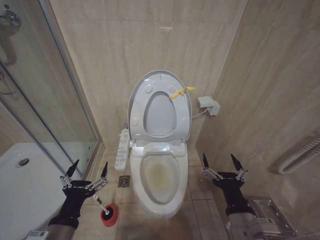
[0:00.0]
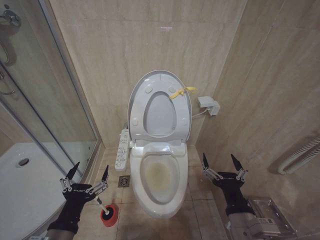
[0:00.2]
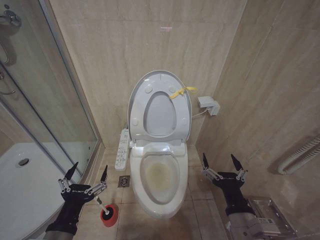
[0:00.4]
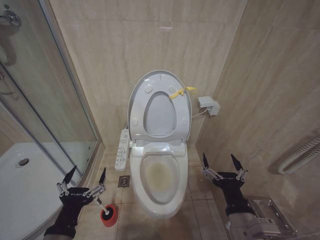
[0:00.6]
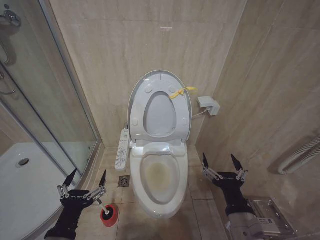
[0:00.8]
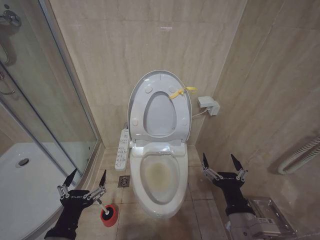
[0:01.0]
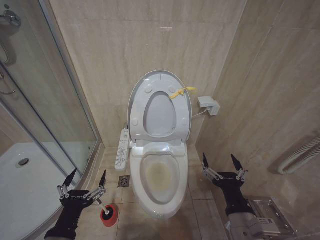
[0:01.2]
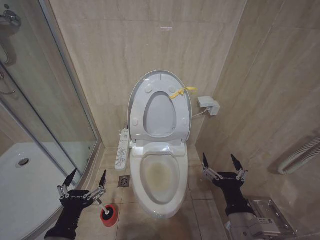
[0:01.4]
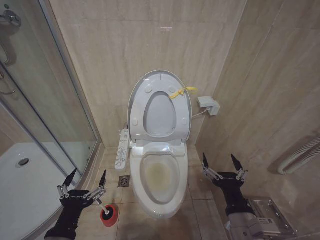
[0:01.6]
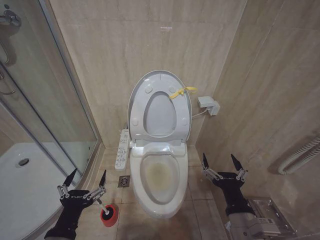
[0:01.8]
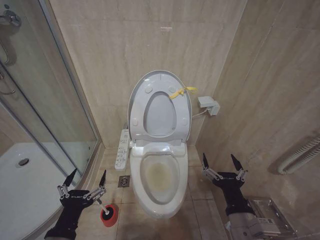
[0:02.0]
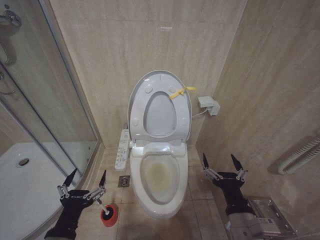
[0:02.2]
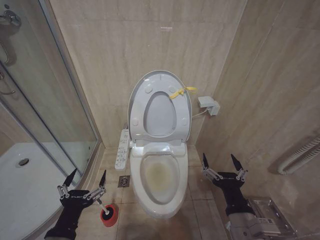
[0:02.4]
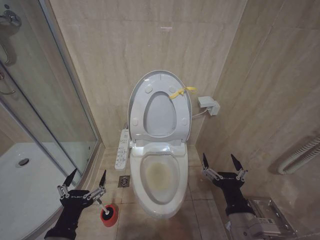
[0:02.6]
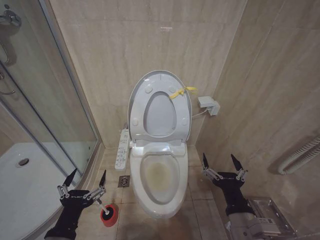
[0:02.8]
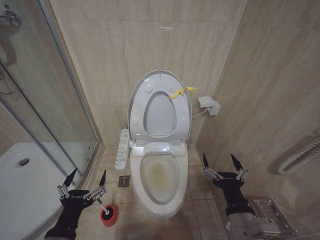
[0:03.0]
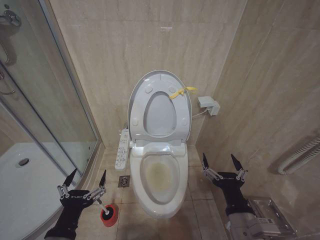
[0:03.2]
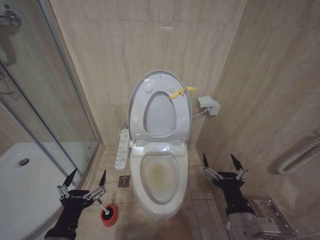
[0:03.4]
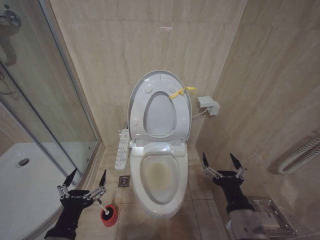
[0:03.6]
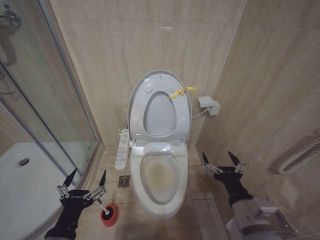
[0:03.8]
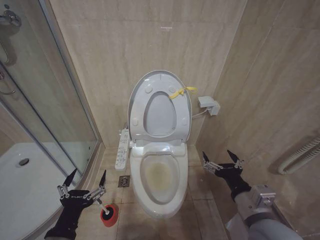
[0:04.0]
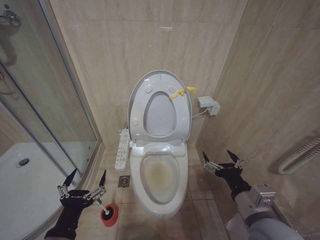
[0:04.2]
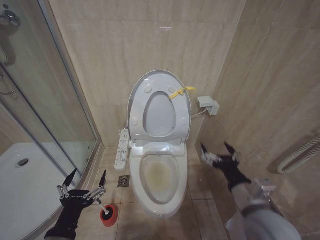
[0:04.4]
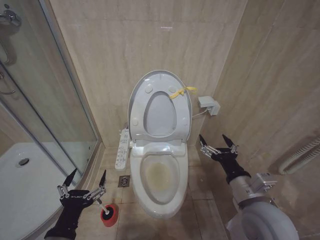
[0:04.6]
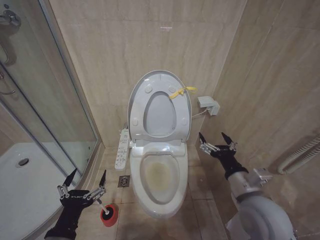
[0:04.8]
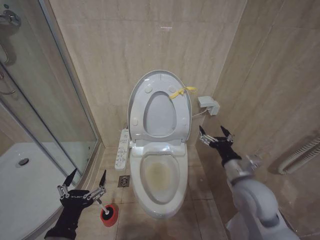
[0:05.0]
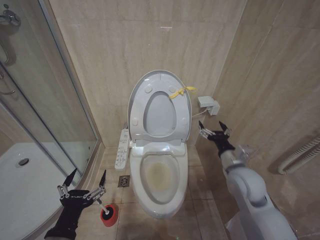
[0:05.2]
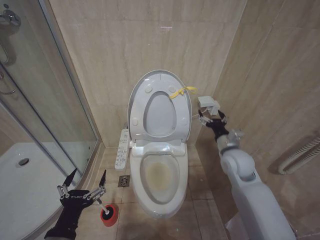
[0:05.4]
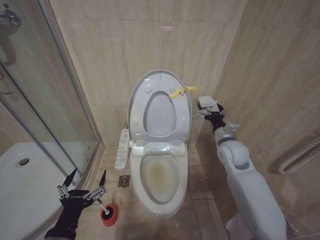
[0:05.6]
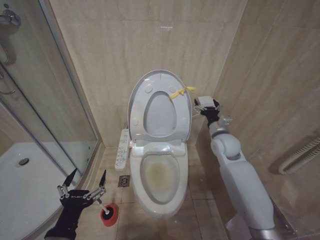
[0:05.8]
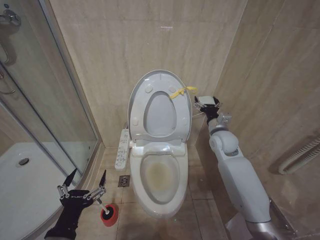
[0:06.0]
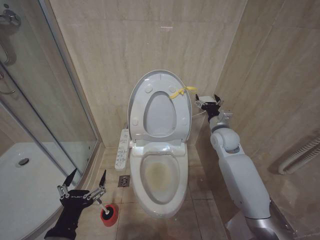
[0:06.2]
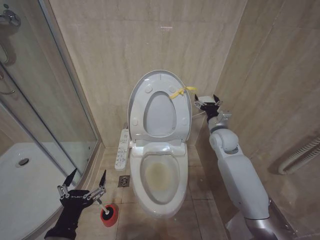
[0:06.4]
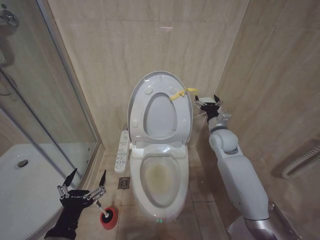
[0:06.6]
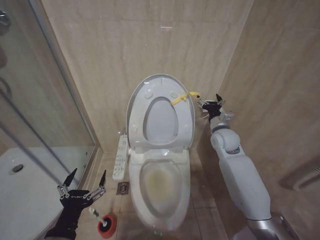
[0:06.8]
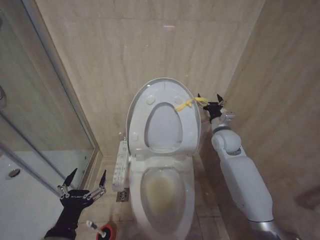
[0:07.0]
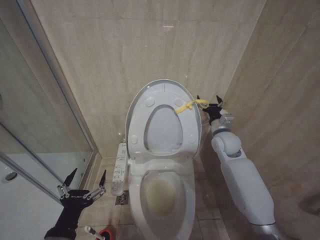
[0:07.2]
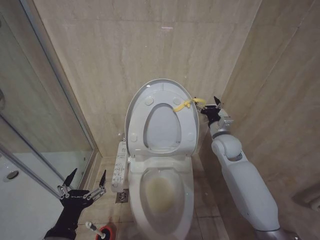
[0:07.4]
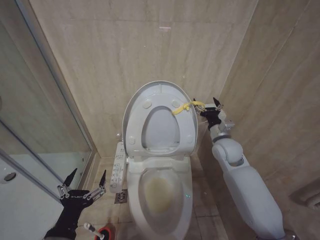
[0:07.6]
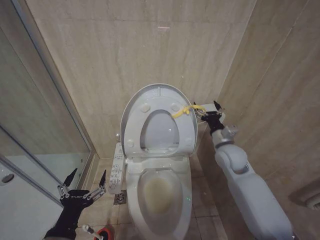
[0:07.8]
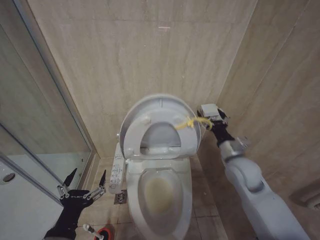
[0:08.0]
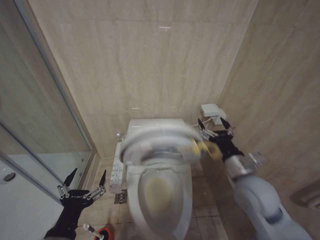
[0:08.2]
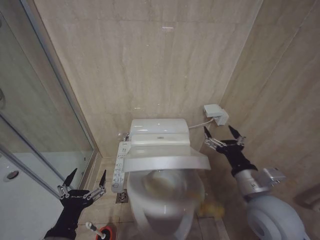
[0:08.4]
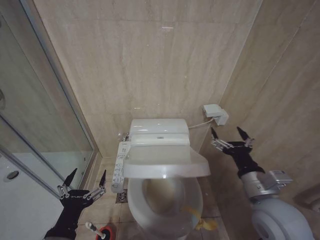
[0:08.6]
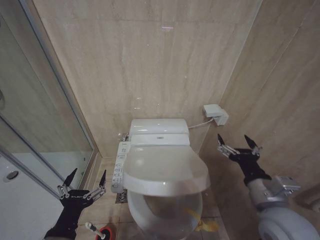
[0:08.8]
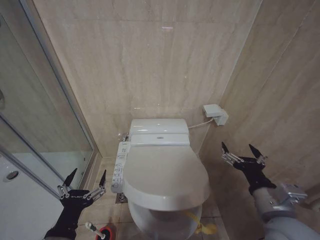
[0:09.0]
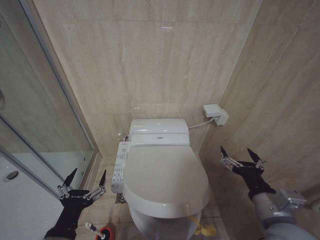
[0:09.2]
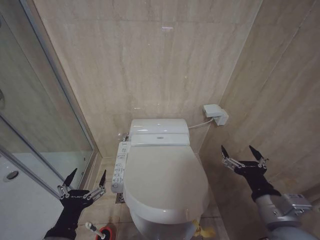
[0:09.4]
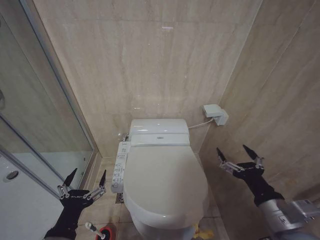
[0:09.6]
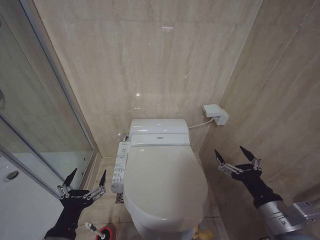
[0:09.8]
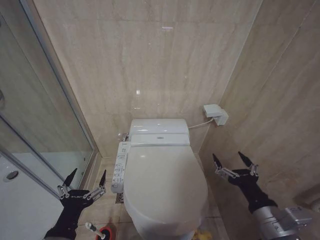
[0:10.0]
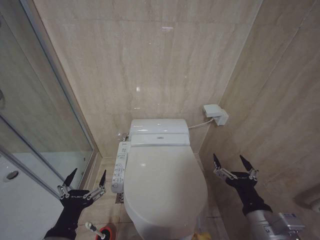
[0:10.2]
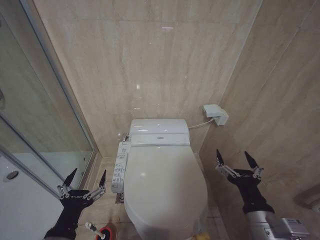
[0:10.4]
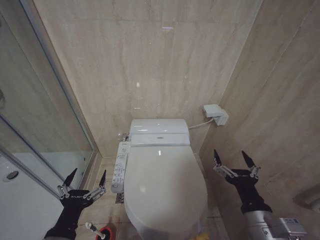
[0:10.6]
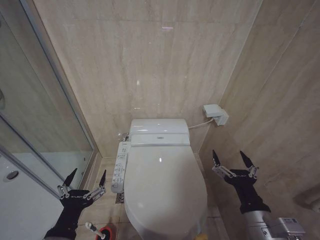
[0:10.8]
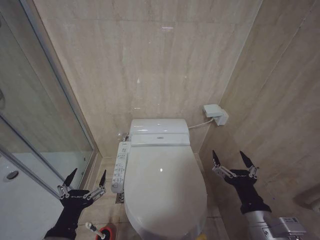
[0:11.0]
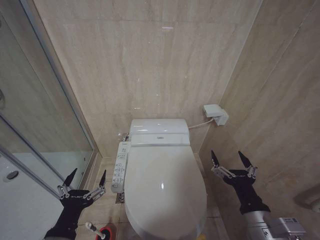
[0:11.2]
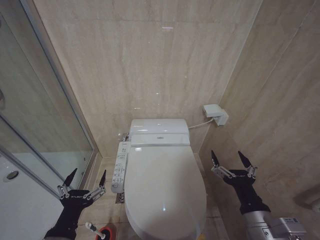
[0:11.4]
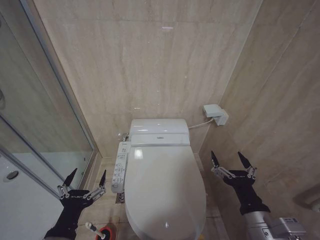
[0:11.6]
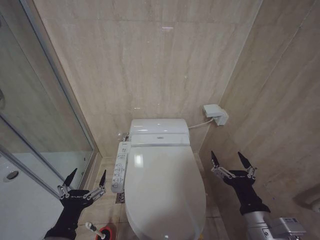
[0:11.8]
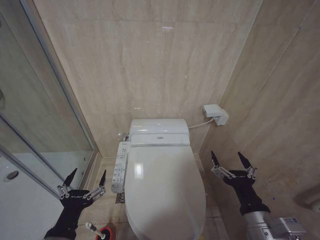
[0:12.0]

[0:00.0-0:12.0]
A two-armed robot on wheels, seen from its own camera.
Task of the whole recording: Open the toilet lid, clean the toilet bowl with a toilet brush, close the toilet lid, and flush.
0:00.0 to 0:01.6: The grippers stay close to where they were, moving slightly.
0:01.6 to 0:03.0: Neither gripper changes place.
0:03.0 to 0:04.4: The right gripper shifts by about 5 cm.
0:04.4 to 0:06.0: The right gripper moves forward, some 30 cm.
0:06.0 to 0:07.6: The grippers move only a little.
0:07.6 to 0:09.0: The right gripper shifts roughly 25 cm backward.
0:09.0 to 0:10.4: The right gripper ends up some 5 cm from where it was.
0:10.4 to 0:12.0: The two grippers keep their place.

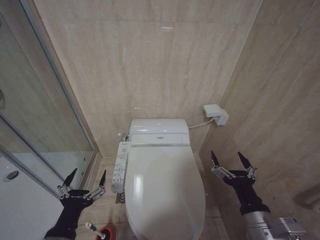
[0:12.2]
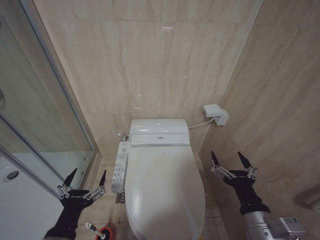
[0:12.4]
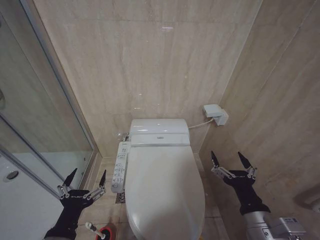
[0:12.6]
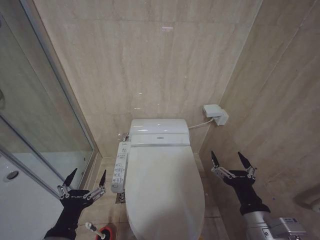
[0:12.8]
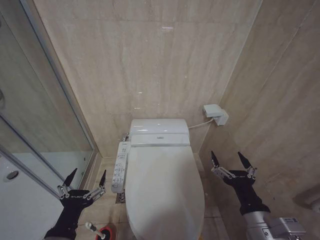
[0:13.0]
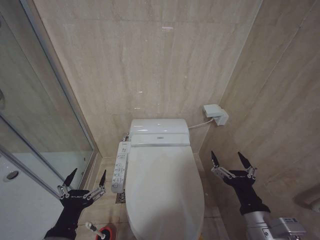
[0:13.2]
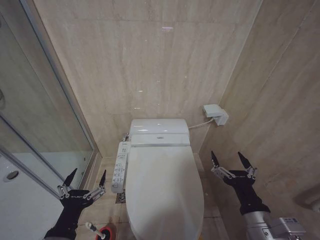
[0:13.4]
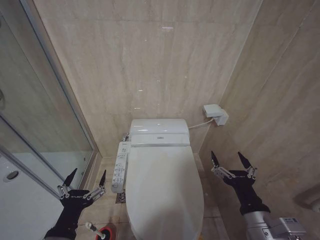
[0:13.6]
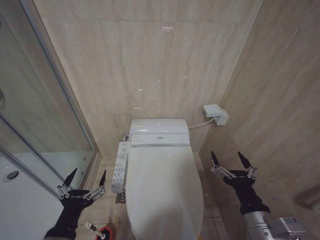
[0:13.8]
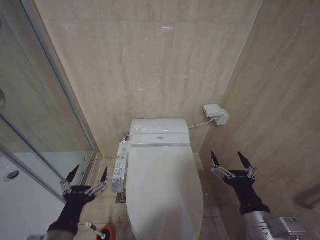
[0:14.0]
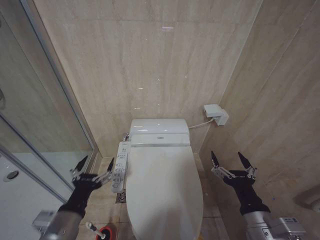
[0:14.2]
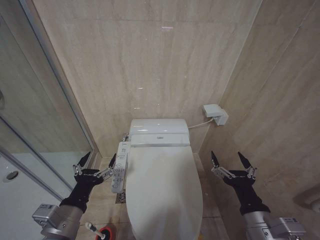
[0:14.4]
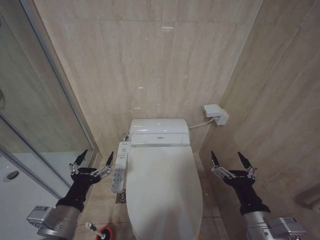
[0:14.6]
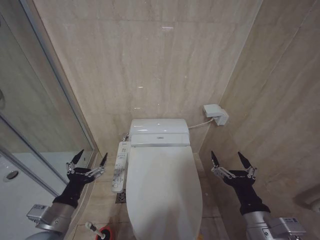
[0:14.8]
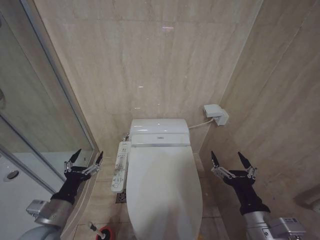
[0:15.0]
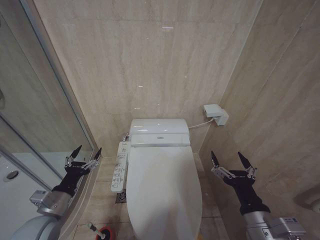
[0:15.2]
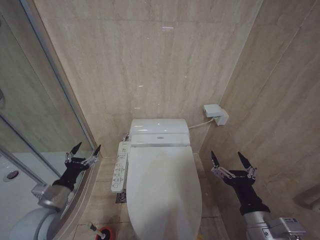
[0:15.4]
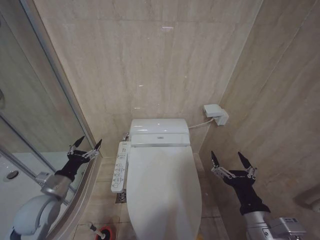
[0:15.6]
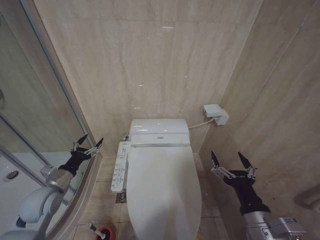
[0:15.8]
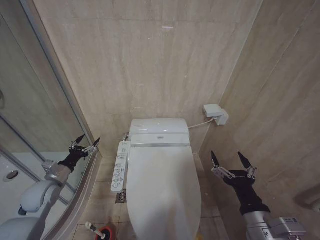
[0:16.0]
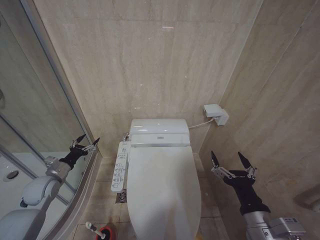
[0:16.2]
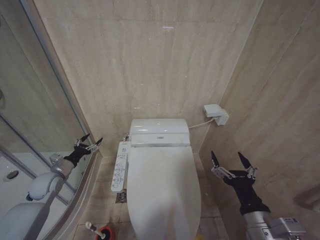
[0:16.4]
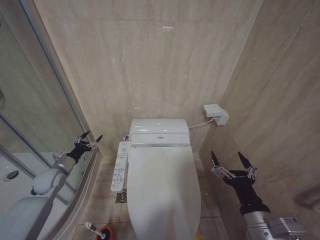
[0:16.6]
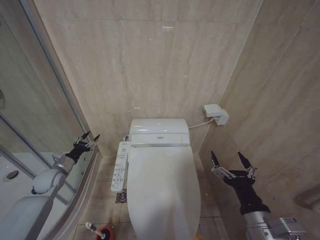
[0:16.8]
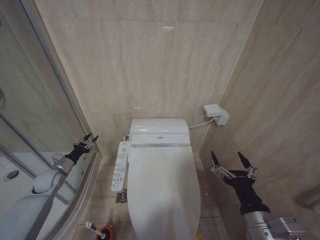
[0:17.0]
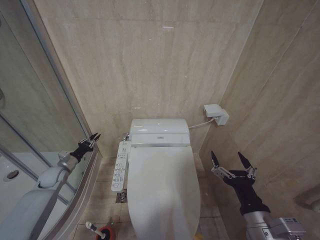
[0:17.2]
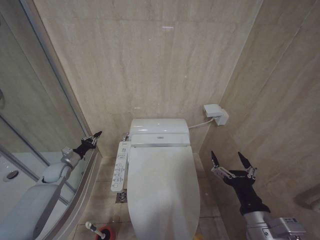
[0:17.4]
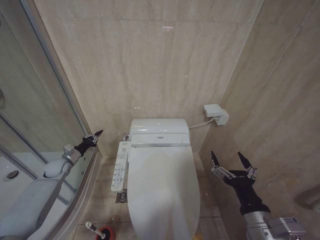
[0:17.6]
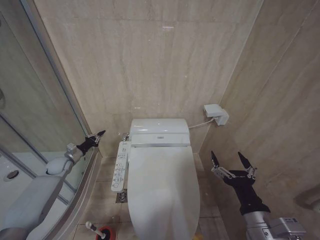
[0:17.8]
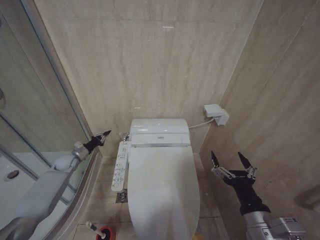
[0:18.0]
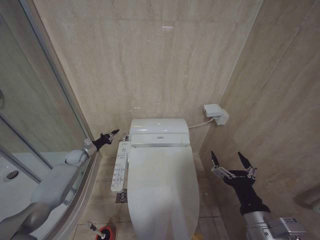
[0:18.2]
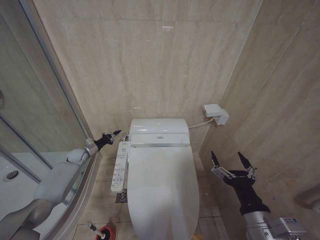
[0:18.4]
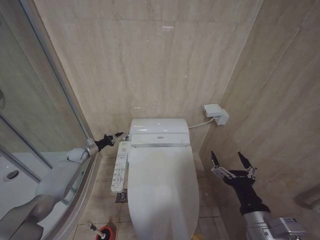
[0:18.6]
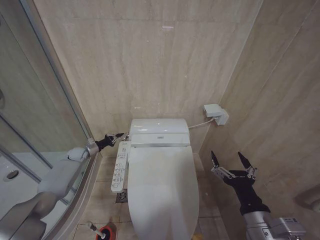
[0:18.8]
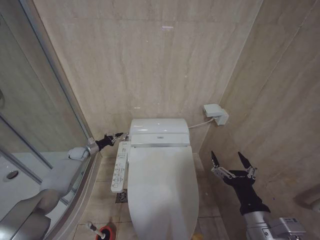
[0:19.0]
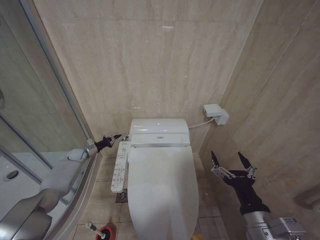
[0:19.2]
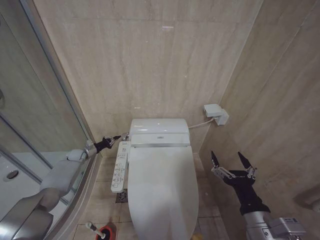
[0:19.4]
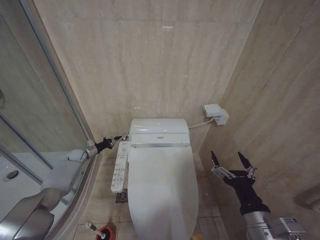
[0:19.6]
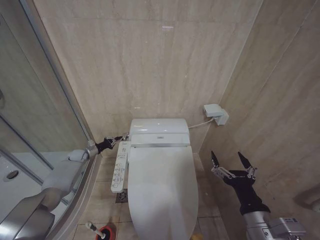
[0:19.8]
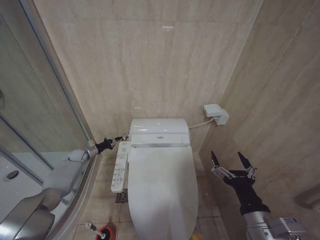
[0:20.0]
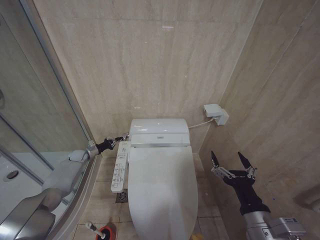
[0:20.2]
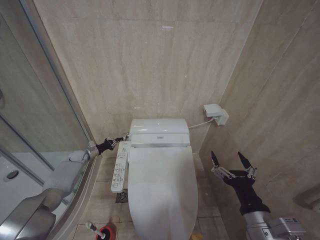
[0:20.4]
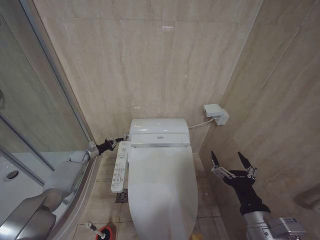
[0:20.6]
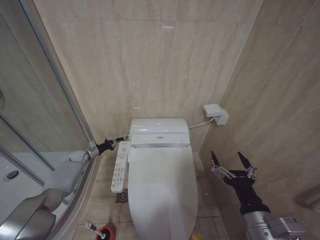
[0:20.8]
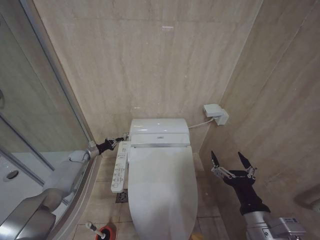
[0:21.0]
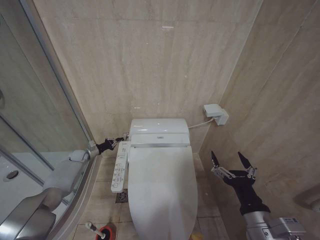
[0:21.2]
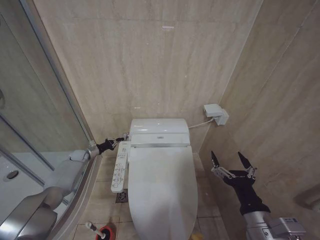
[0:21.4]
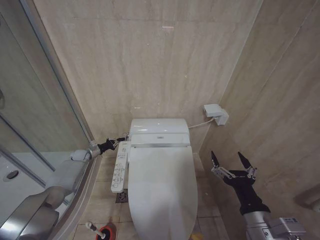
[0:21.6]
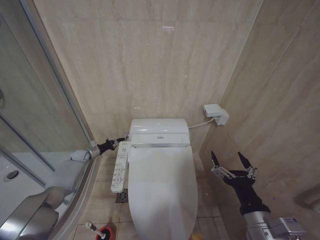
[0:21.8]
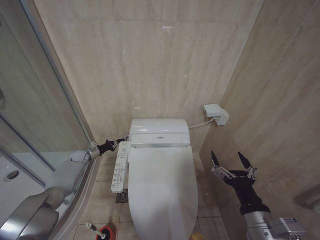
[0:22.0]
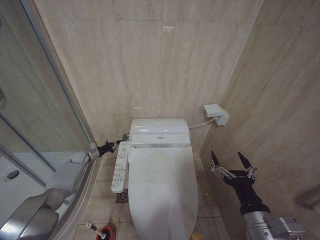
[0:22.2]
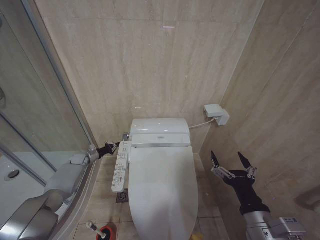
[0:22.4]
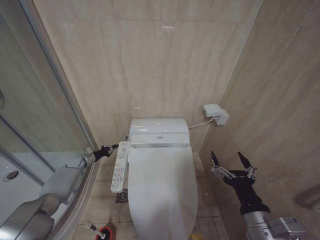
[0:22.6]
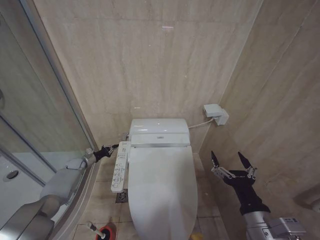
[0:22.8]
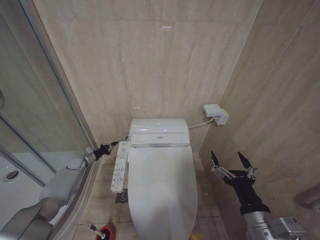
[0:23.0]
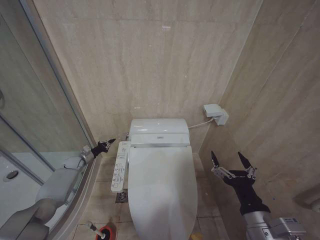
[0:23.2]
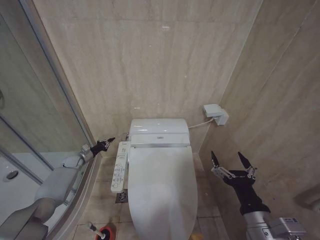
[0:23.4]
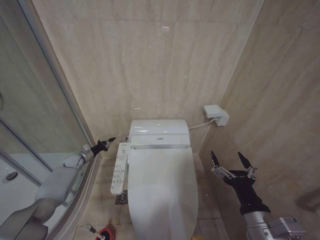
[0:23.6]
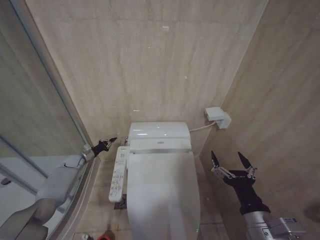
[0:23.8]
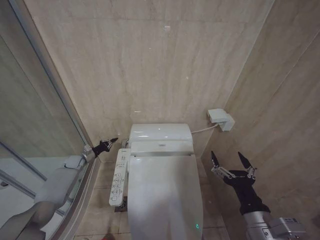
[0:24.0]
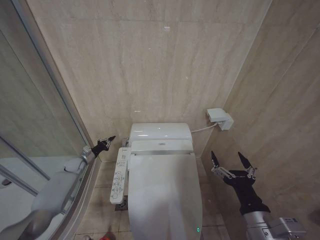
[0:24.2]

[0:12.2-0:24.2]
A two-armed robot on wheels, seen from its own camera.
Task of the whole recording: Open the toilet lid, clean the toilet bowl with a toilet brush, close the toilet lid, and flush.
0:12.2 to 0:13.8: The two grippers keep their place.
0:13.8 to 0:15.2: The left gripper travels forward and to the left by roughly 15 cm.
0:15.2 to 0:16.6: The left gripper heads forward and to the left, covering roughly 20 cm.
0:16.6 to 0:18.2: The left gripper heads forward, covering roughly 15 cm, and closes up.
0:18.2 to 0:19.8: There are only small adjustments of the grippers.
0:19.8 to 0:21.2: Neither gripper changes place.
0:21.2 to 0:24.2: The grippers move only a little.
